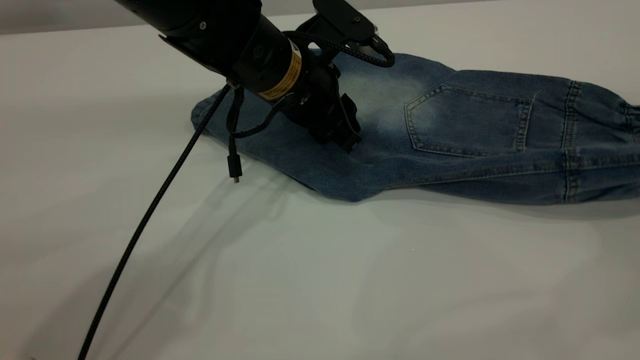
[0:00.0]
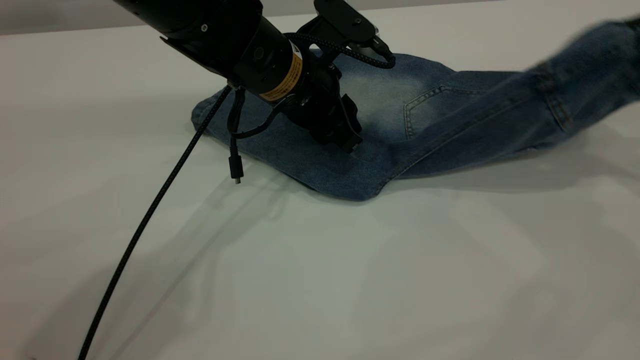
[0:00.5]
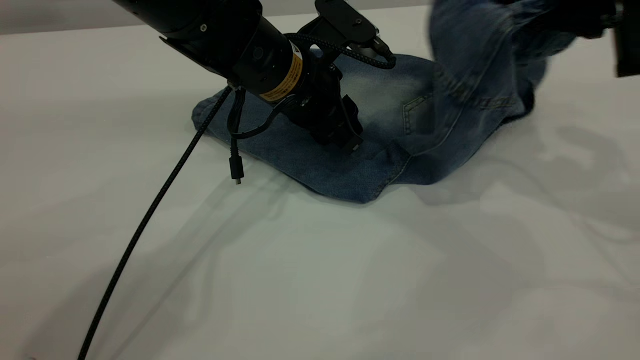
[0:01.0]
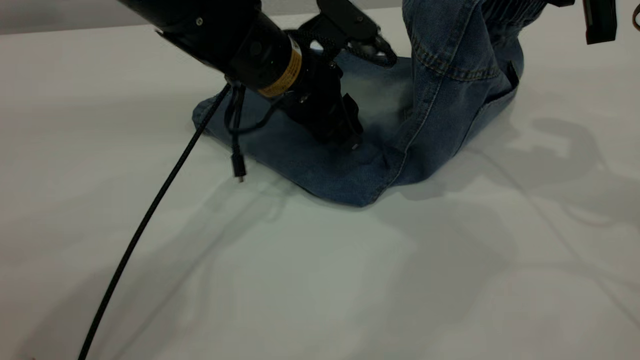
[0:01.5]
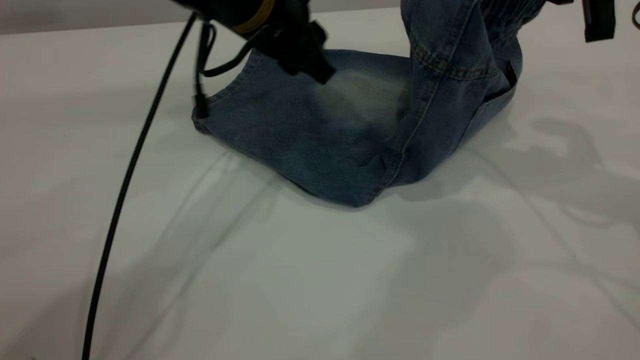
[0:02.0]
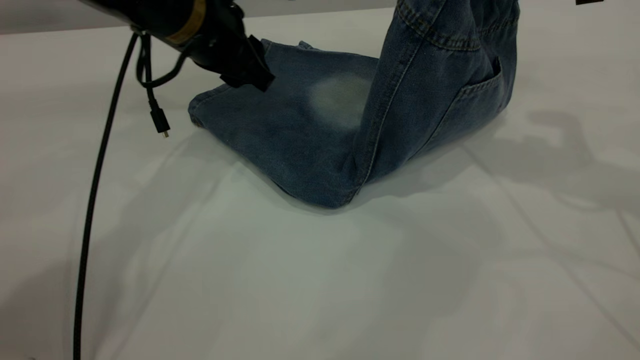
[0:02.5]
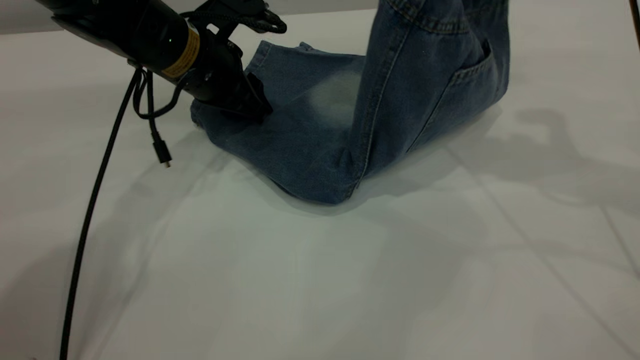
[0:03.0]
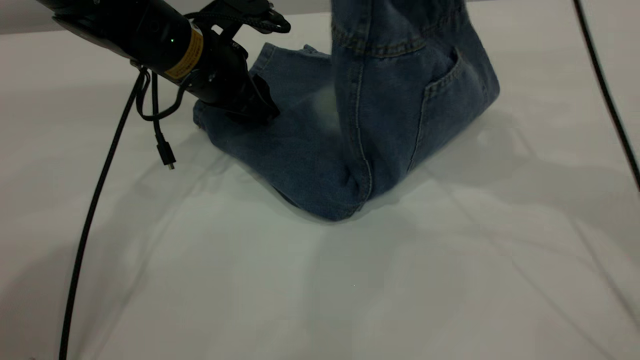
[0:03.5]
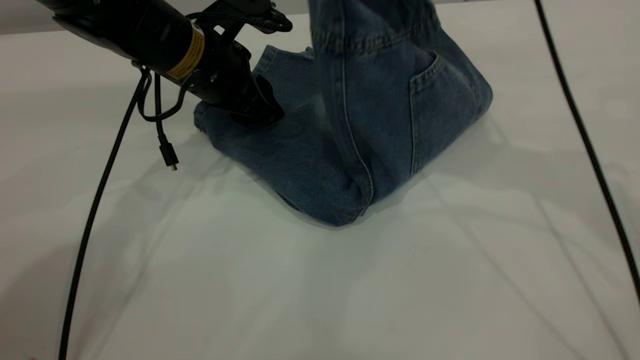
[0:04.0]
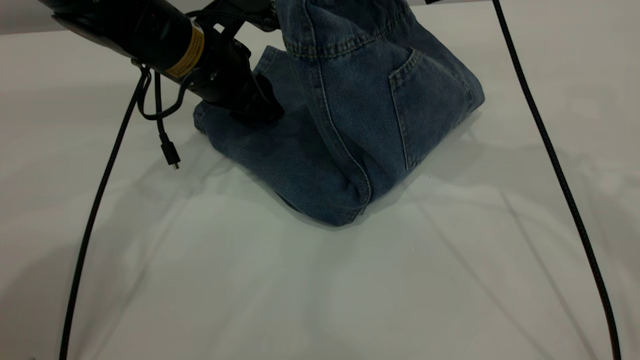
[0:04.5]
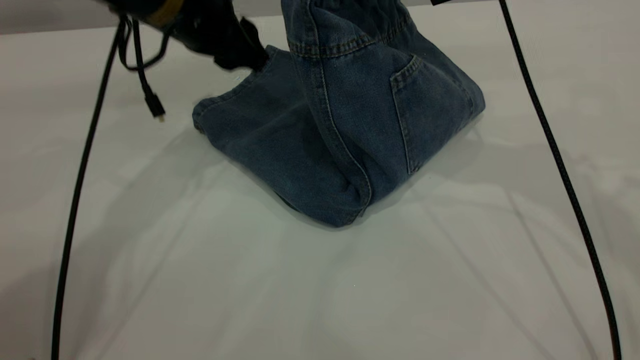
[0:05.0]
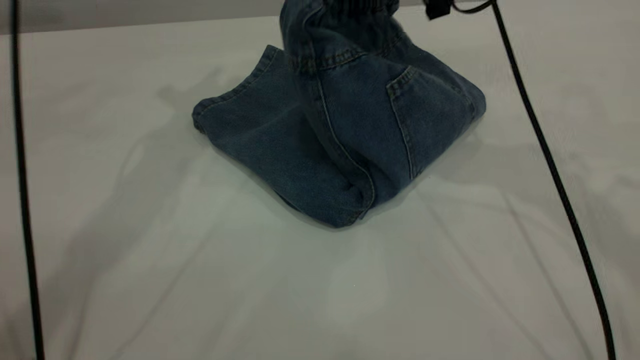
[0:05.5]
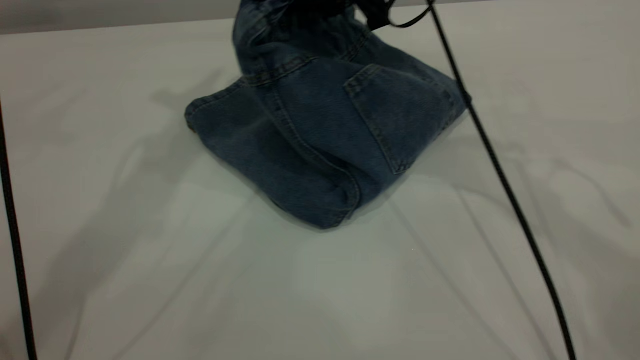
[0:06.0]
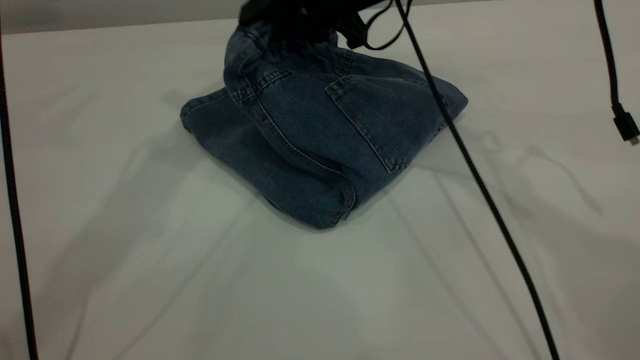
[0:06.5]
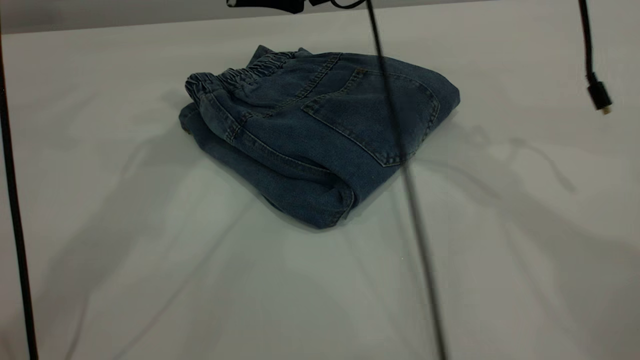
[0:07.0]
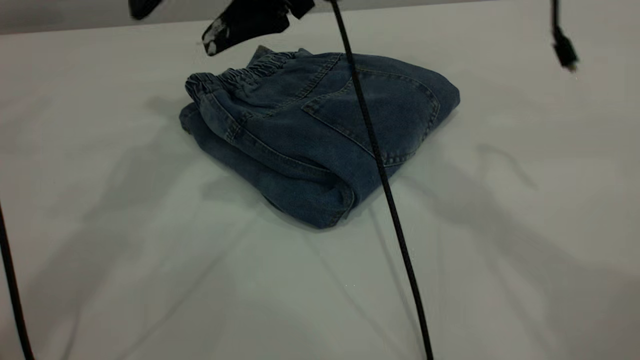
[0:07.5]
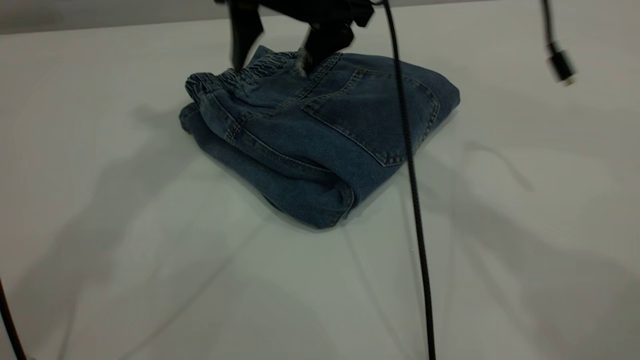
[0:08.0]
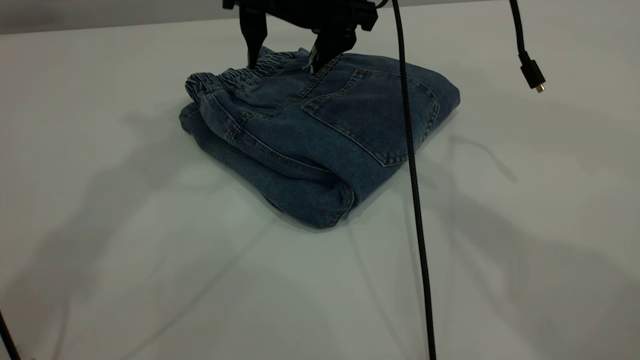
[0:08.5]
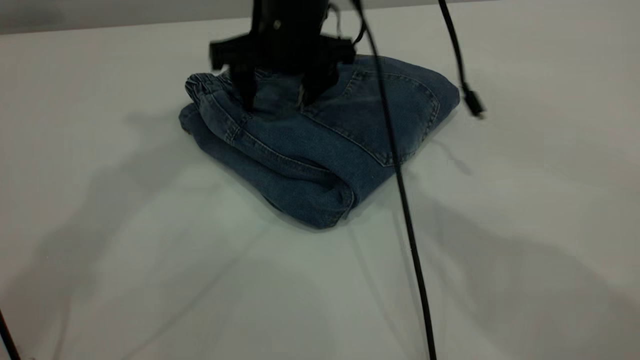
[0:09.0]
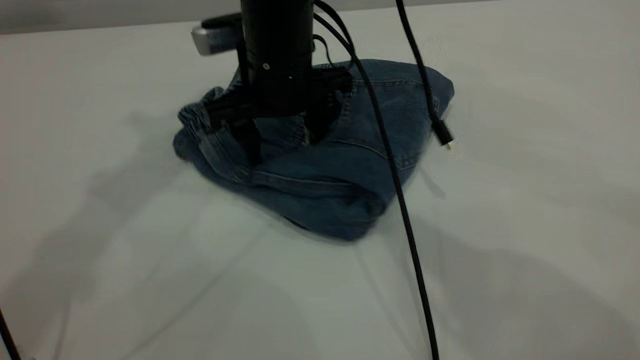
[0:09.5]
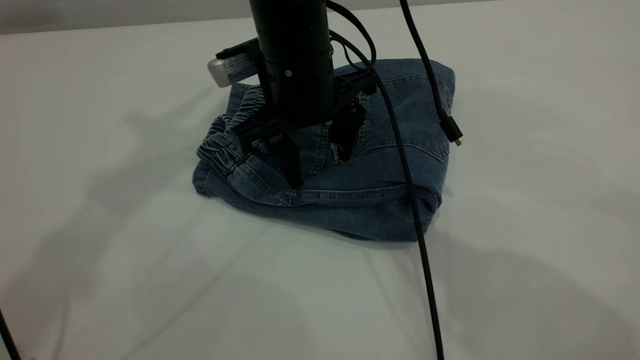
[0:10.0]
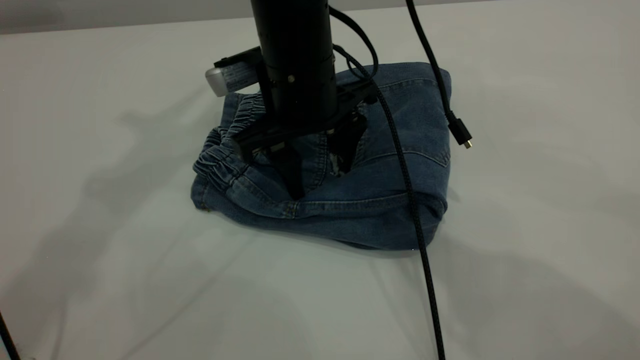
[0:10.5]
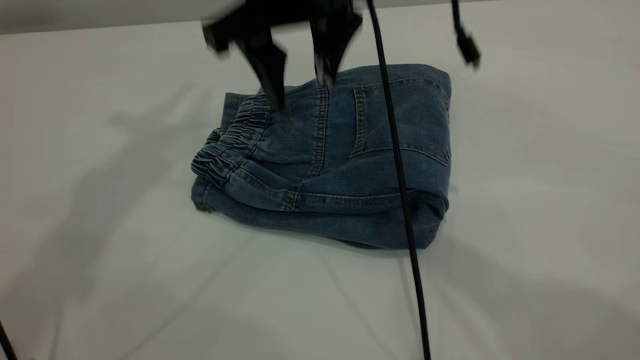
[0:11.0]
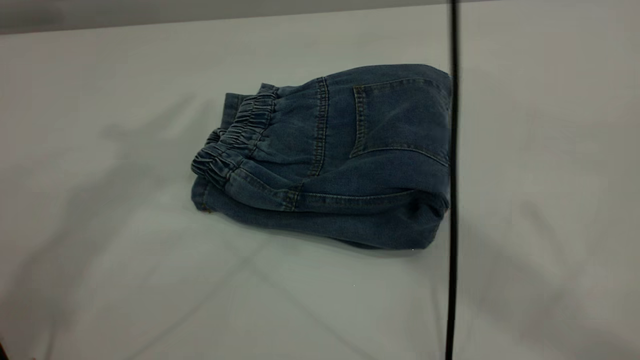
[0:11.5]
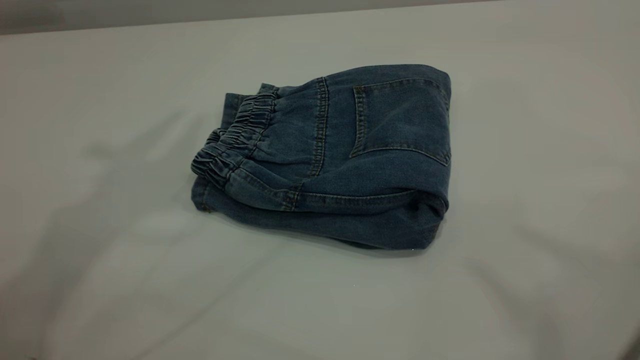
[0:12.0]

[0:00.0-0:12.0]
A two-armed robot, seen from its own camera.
Step, 0:00.0 to 0:07.0: Fold your pants from right to left.
0:00.0 to 0:02.0: The left gripper is displaced upward by some 5 cm. The right gripper shifts approximately 20 cm to the left, upward and forward.
0:02.0 to 0:04.0: Both grippers travel together to the left, some 5 cm.
0:04.0 to 0:06.0: The left gripper shifts some 20 cm upward; the right gripper shifts approximately 10 cm to the left.
0:06.0 to 0:08.0: The right gripper opens up, while the left gripper goes about 10 cm upward.
0:08.0 to 0:10.0: The right gripper is displaced downward by roughly 5 cm.
0:10.0 to 0:12.0: The left gripper is displaced upward by approximately 5 cm. The right gripper heads upward, backward and to the right, covering about 50 cm.
